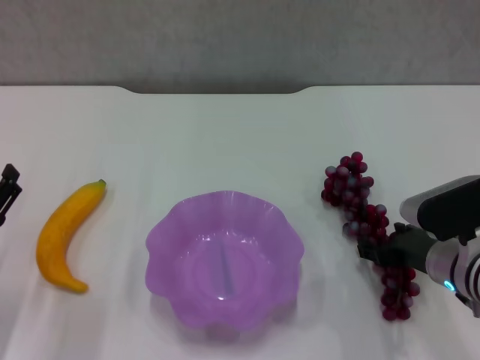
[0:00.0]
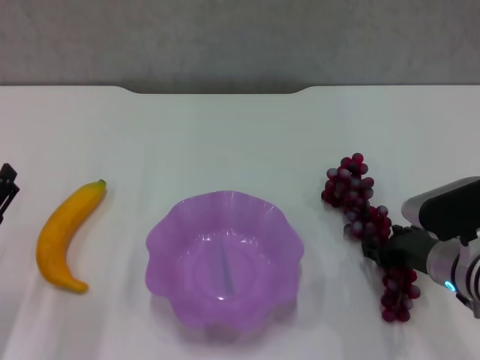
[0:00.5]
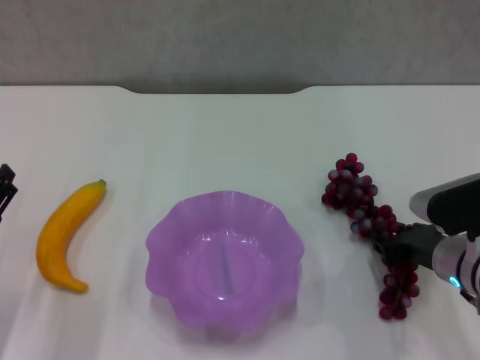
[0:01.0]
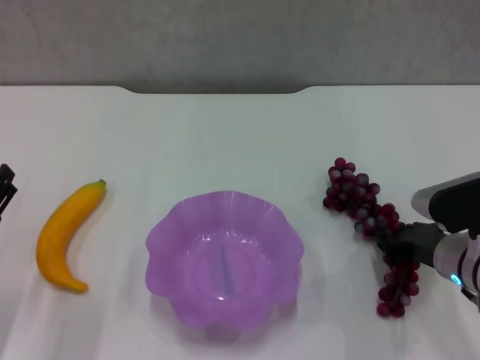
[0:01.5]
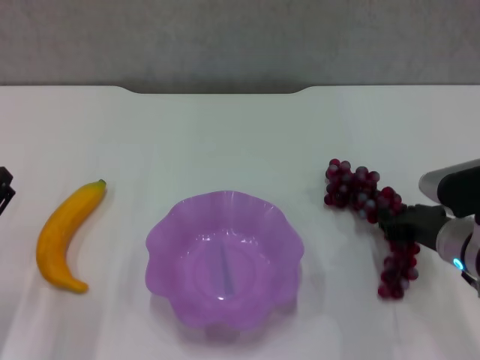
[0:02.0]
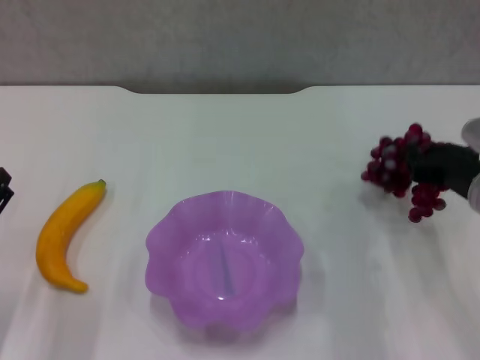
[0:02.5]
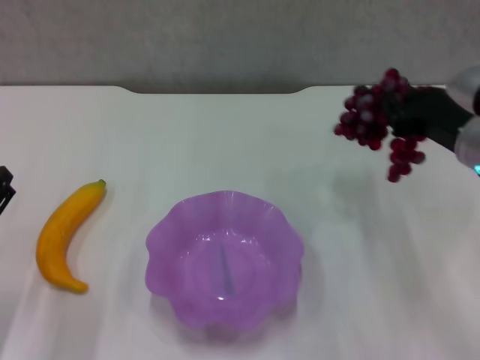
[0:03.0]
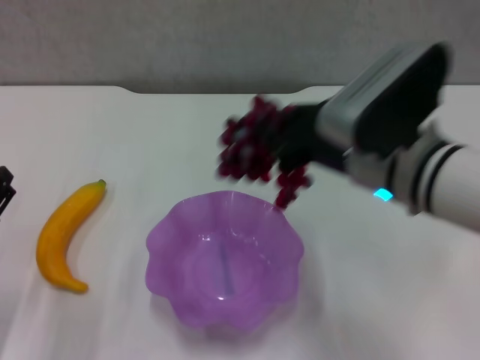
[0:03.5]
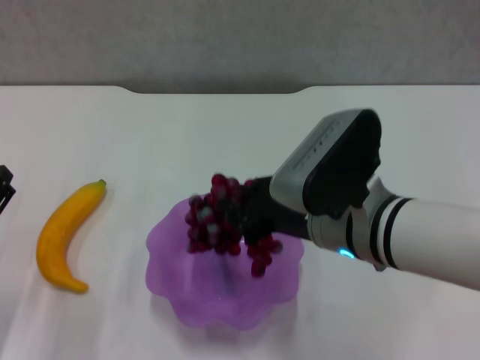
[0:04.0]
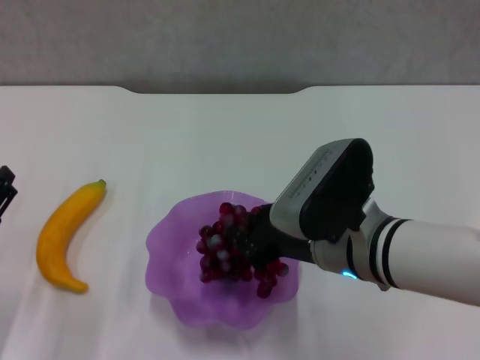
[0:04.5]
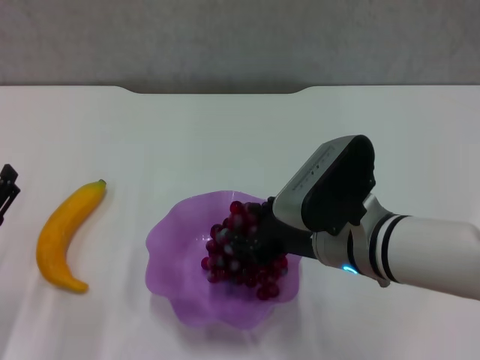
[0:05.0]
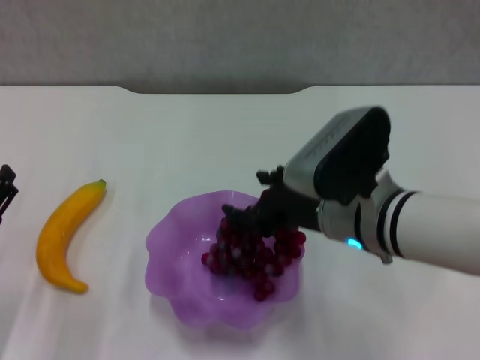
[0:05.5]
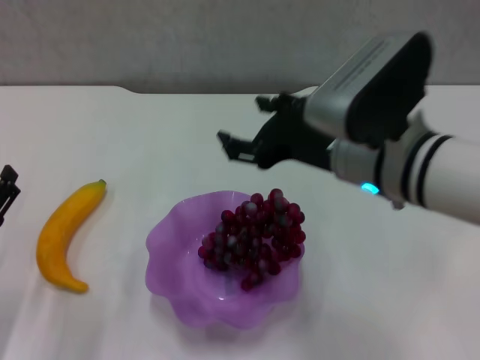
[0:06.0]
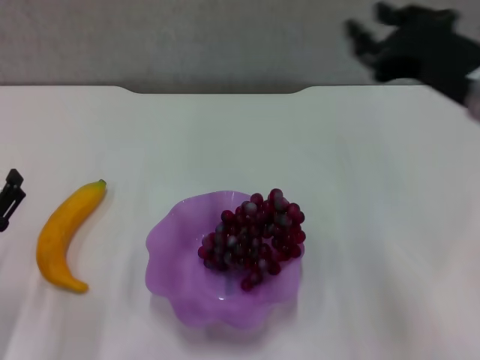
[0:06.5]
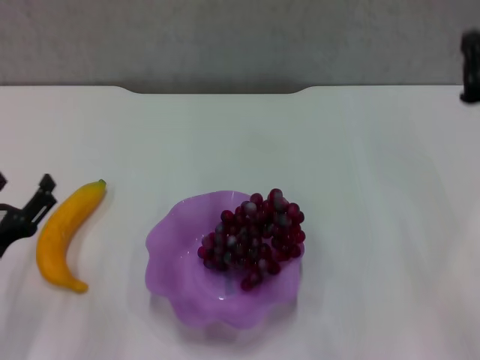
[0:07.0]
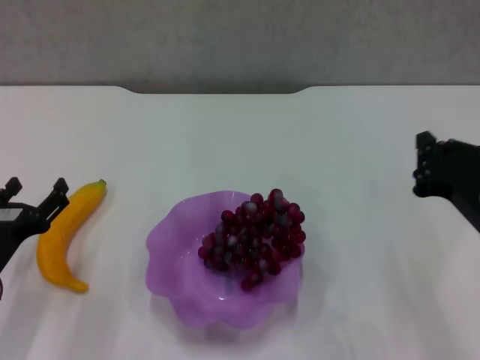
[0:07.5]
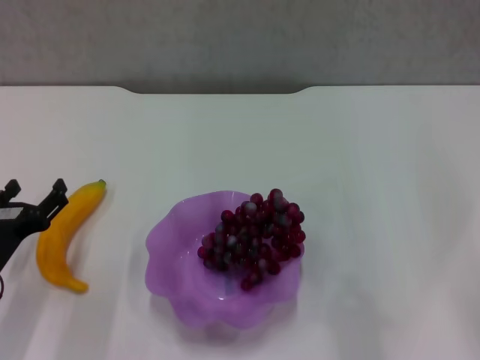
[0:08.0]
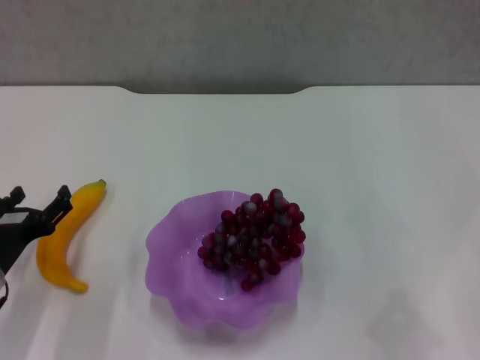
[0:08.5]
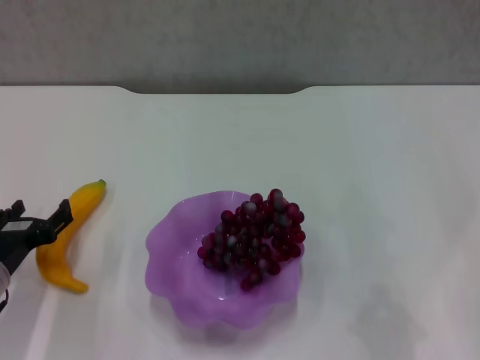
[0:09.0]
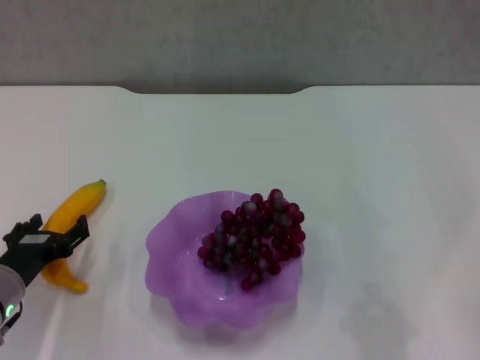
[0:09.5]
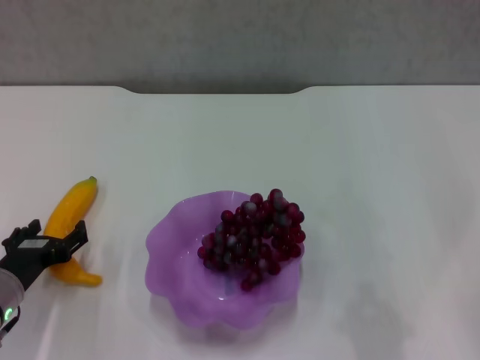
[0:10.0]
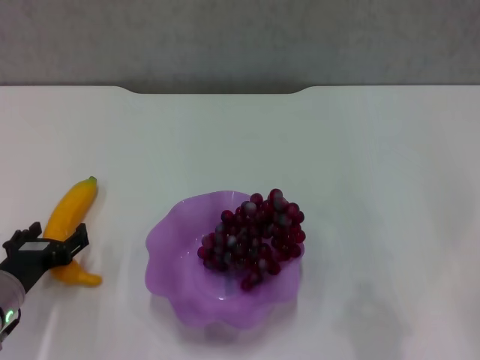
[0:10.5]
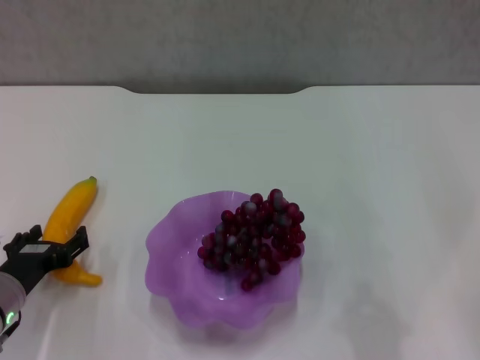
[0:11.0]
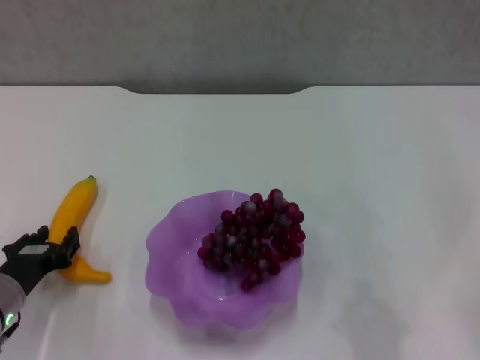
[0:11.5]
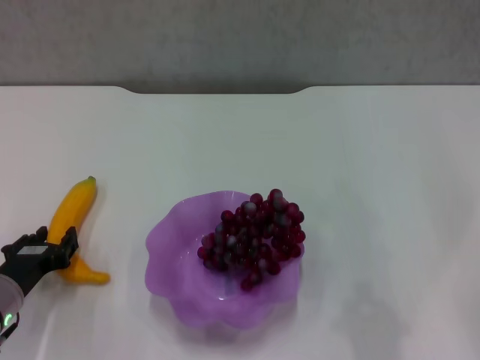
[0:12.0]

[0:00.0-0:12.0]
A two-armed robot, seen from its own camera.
Step, 0:02.0 to 0:05.5: Place the grape in the purple plate with right gripper.
0:00.0 to 0:02.0: The right gripper closes up.
0:02.0 to 0:04.0: The right gripper is displaced to the left and upward by roughly 15 cm.
0:04.0 to 0:06.0: The right gripper moves approximately 5 cm, and opens.
0:06.0 to 0:08.0: The right gripper travels to the right and backward by roughly 20 cm, and closes.
0:08.0 to 0:10.0: The grippers move only a little.
0:10.0 to 0:12.0: The left gripper closes.

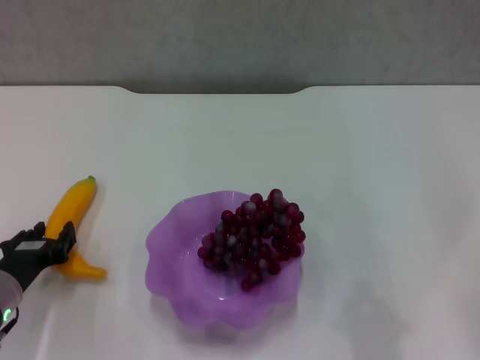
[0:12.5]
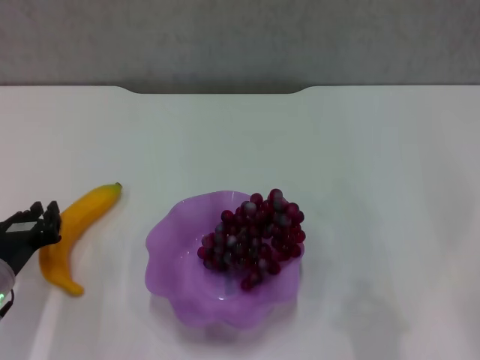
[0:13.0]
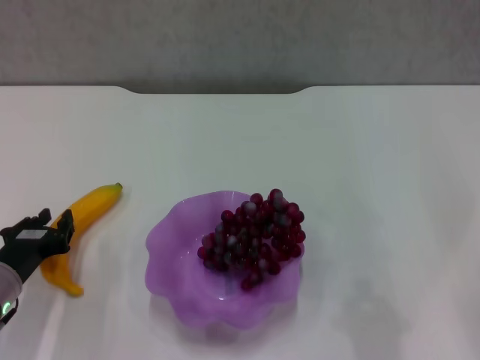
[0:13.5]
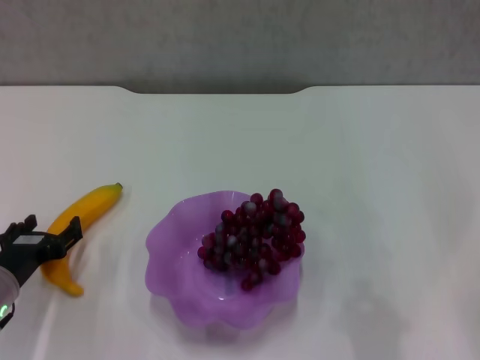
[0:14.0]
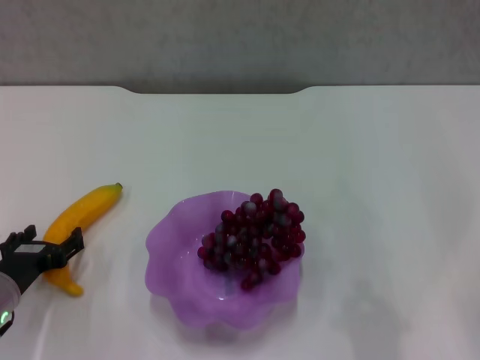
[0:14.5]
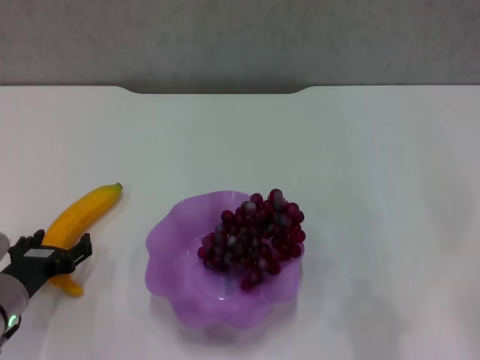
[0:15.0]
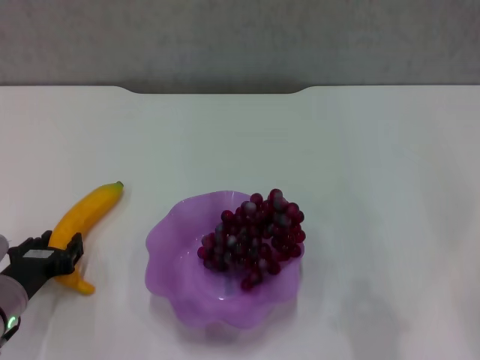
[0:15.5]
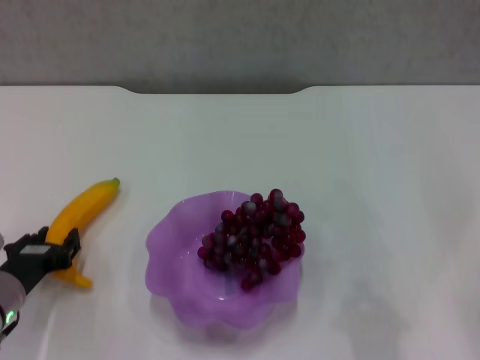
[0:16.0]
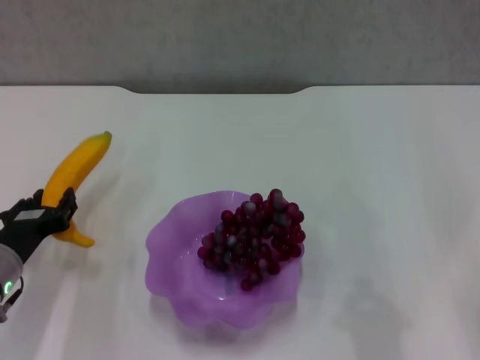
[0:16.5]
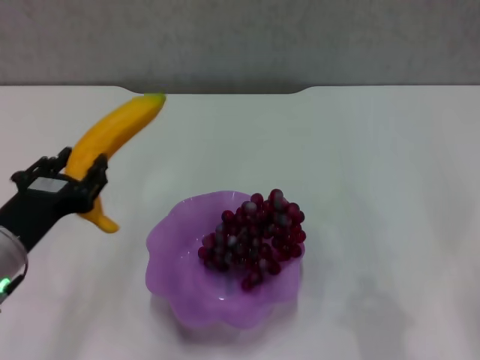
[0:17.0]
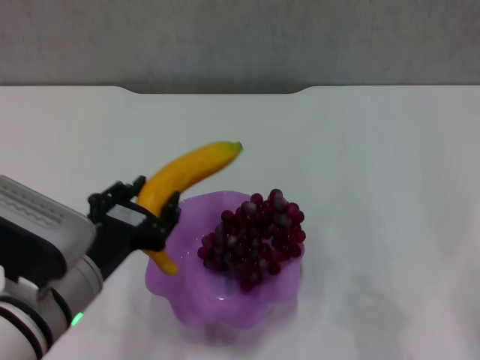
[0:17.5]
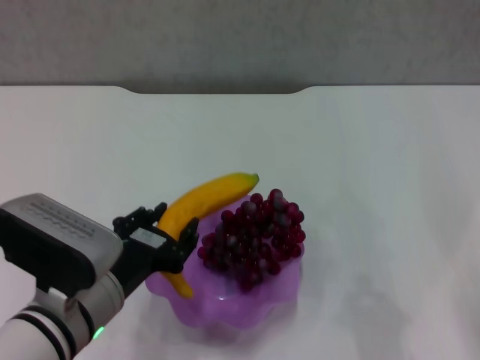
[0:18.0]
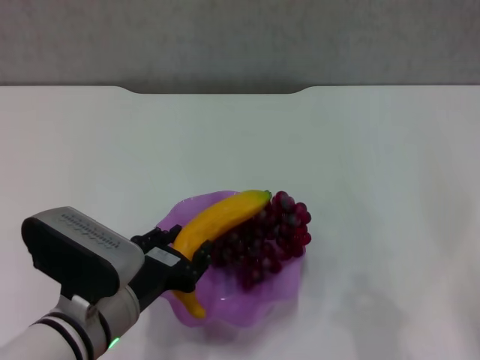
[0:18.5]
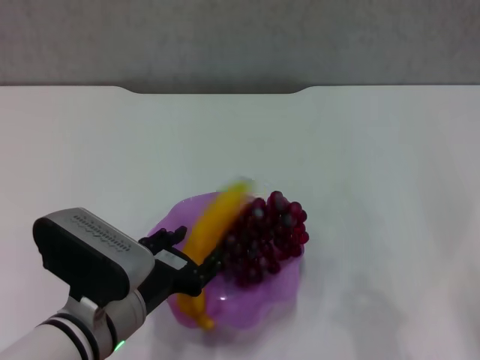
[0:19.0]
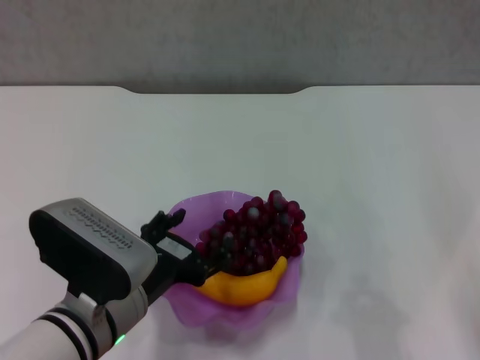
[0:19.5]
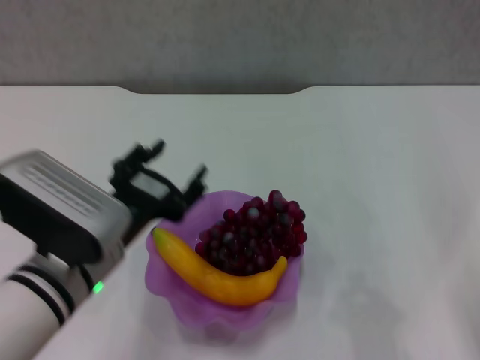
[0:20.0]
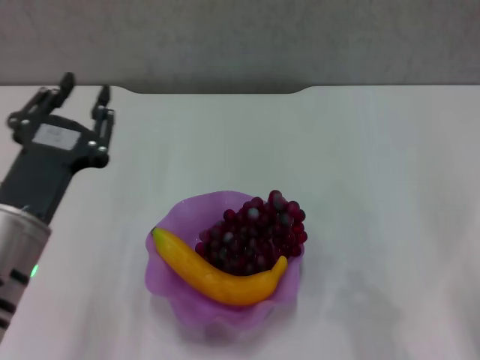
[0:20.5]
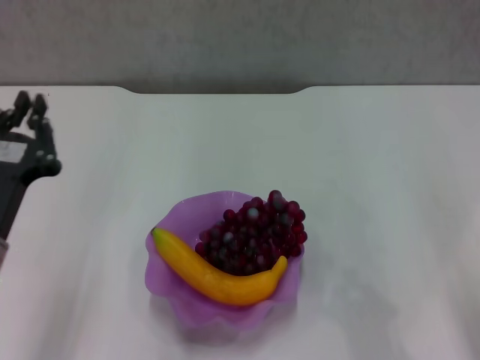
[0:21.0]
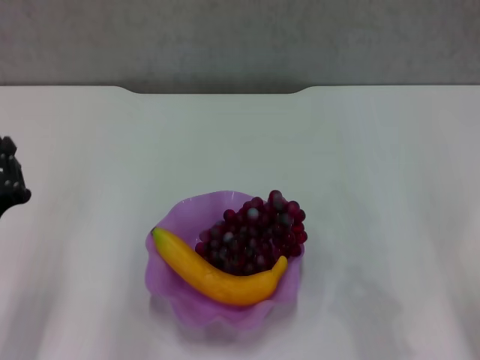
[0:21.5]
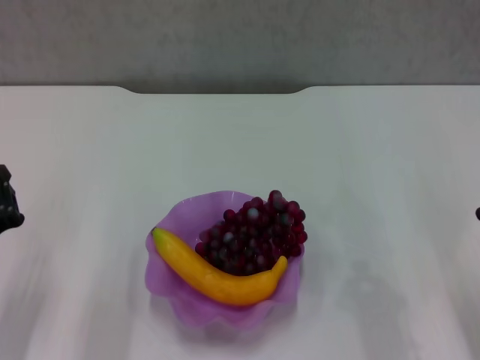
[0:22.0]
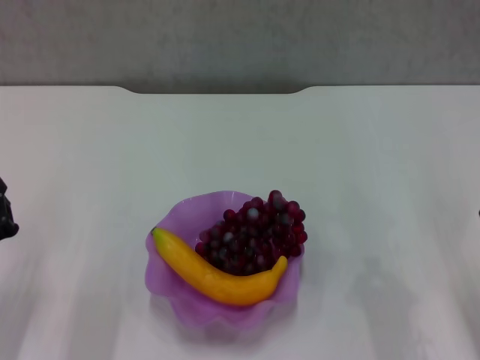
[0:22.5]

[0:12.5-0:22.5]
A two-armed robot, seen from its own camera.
Step, 0:12.5 to 0:15.5: Grasp the banana with left gripper.
Step, 0:16.0 to 0:19.5: Place the banana in the purple plate with left gripper.
0:12.5 to 0:14.5: The left gripper opens its fingers.
0:14.5 to 0:16.5: The left gripper closes.
0:16.5 to 0:18.5: The left gripper is displaced to the right and backward by about 15 cm.
0:18.5 to 0:20.5: The left gripper travels upward by approximately 5 cm, and opens, then closes once more.
0:20.5 to 0:22.5: The left gripper moves to the left and downward, approximately 15 cm, and closes.
